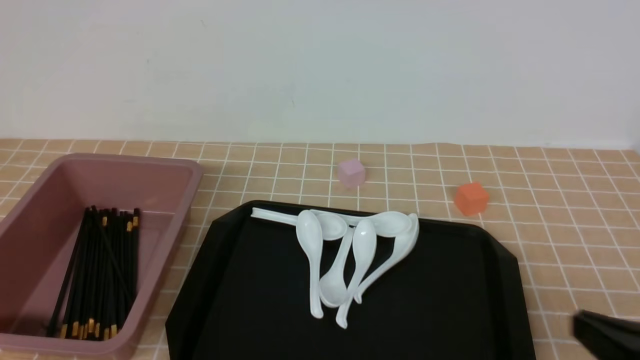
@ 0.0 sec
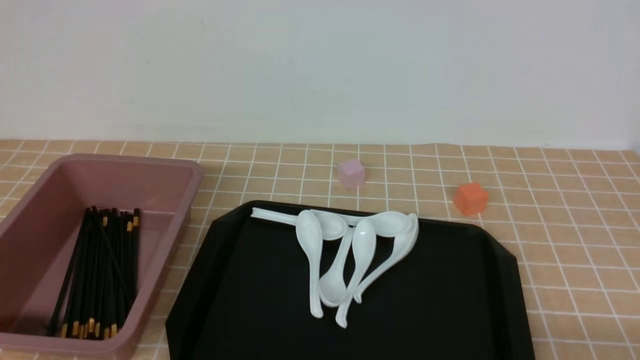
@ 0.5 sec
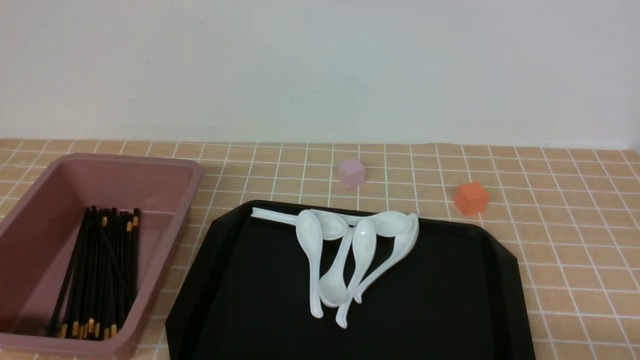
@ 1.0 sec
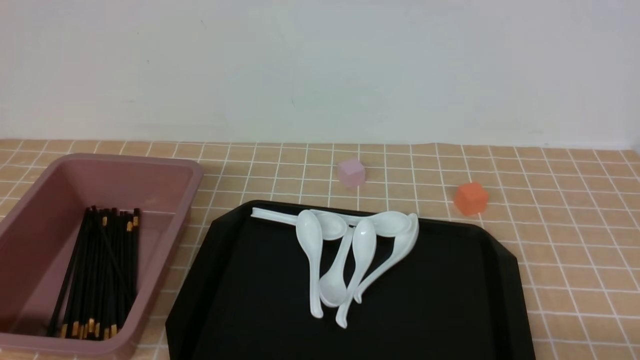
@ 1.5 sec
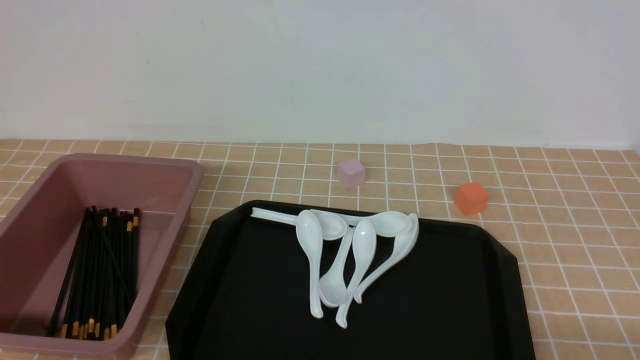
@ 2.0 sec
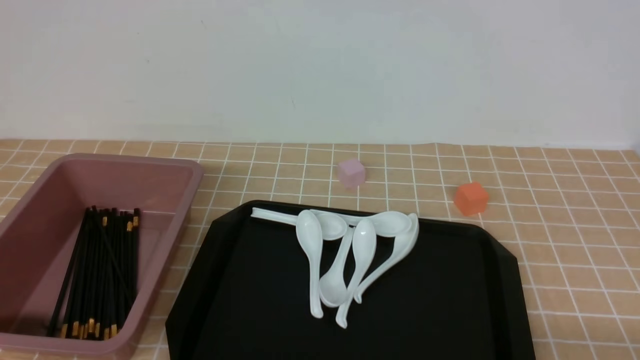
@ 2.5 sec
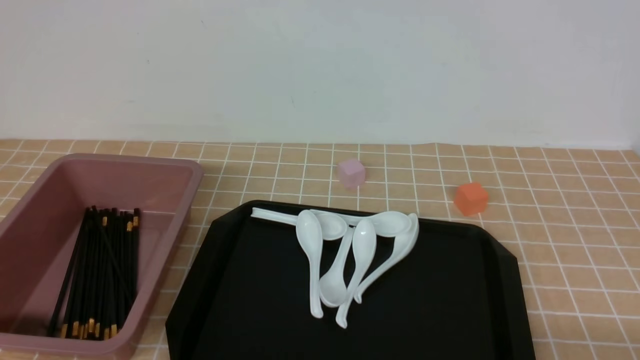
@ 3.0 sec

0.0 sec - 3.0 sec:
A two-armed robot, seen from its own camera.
0.0 sec - 1.5 sec: The right gripper heads downward, covering roughly 5 cm.
1.5 sec - 3.0 sec: The two grippers keep their place.
